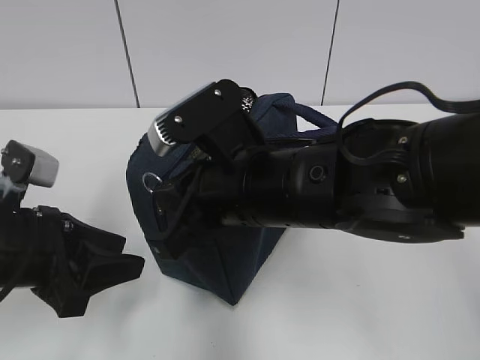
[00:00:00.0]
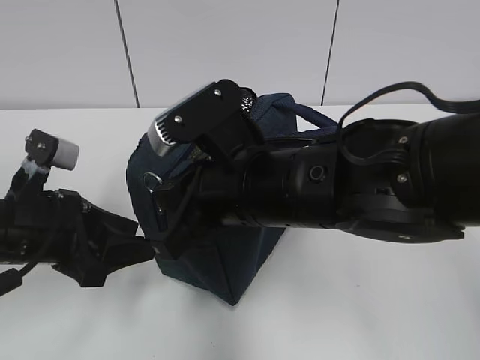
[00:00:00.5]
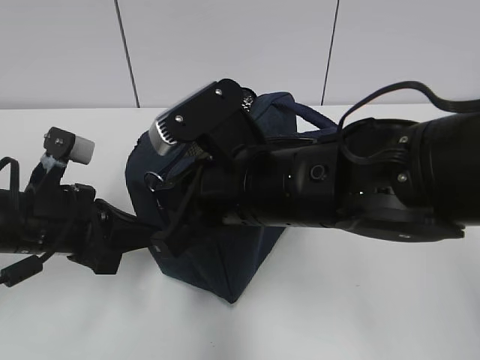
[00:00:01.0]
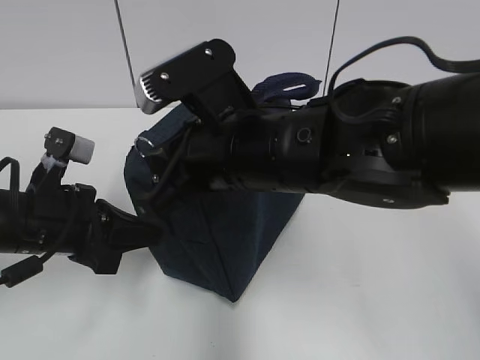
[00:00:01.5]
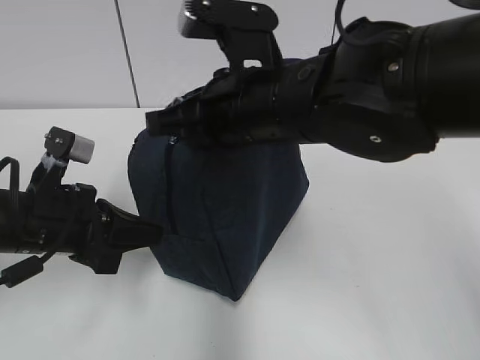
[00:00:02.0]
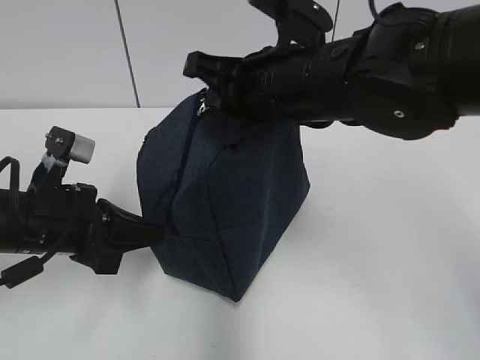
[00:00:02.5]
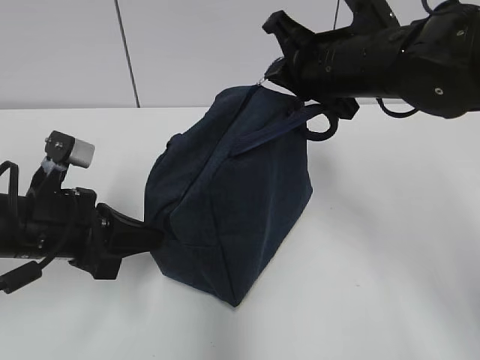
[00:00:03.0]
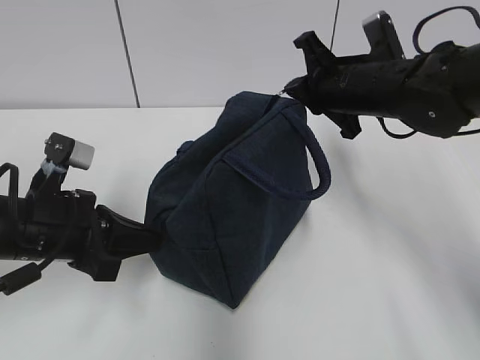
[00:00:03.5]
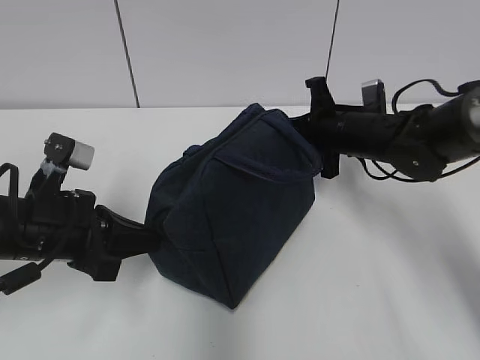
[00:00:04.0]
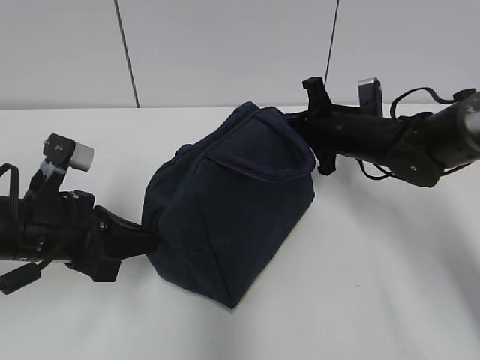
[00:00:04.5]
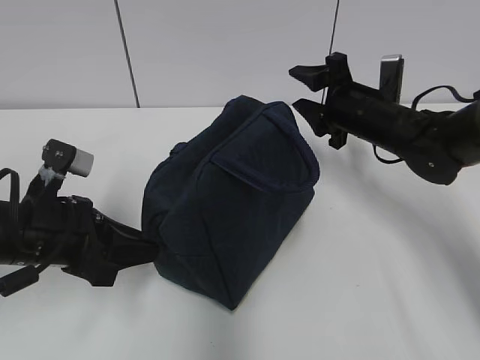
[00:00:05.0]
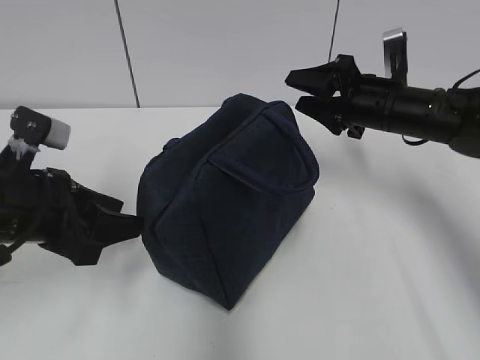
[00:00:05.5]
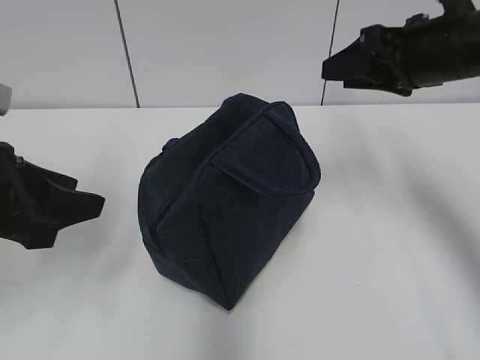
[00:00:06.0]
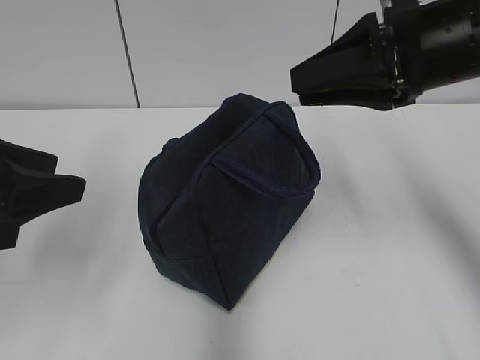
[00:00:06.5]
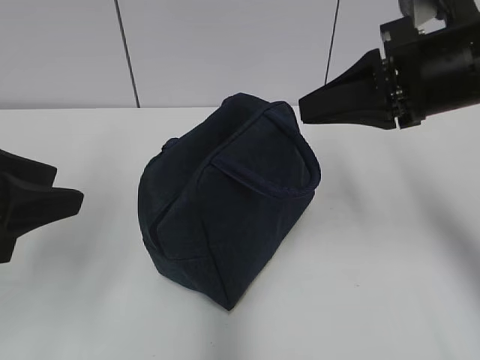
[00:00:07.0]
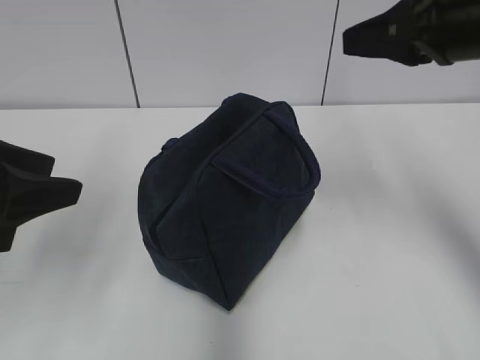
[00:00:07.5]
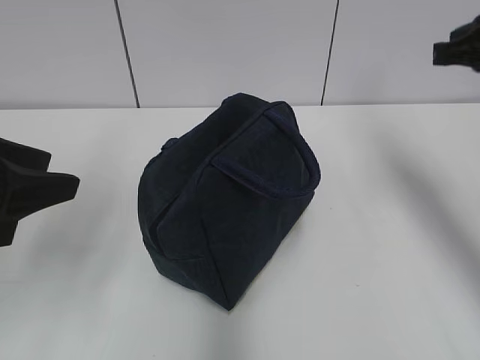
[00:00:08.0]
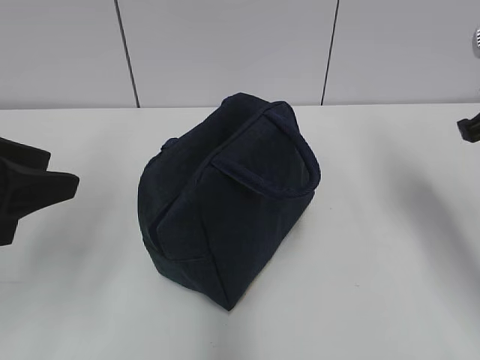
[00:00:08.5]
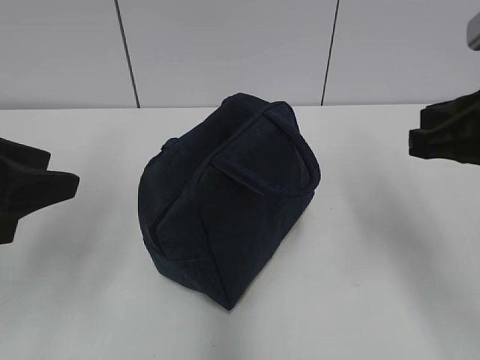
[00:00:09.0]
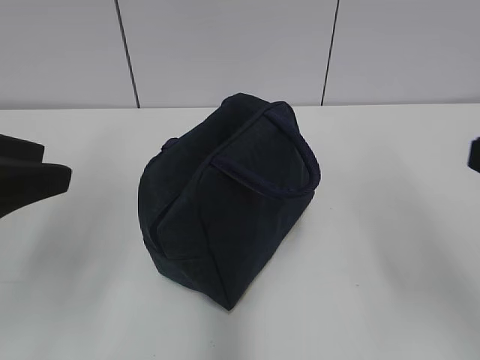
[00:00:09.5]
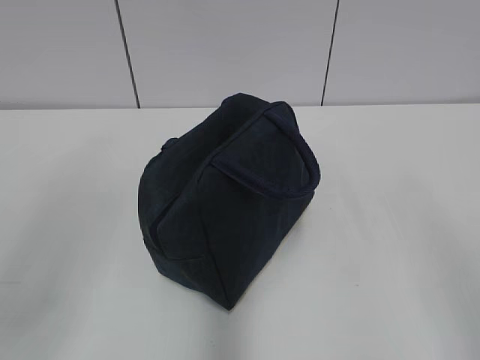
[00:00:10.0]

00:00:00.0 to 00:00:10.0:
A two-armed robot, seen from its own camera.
Step, 00:00:02.0 to 00:00:04.5: Pull the zipper with your right hand.
00:00:00.0 to 00:00:02.0: The left gripper closes up. Meanwhile the right gripper ends up about 5 cm from where it was.
00:00:02.0 to 00:00:04.0: The right gripper heads to the right, forward and downward, covering about 25 cm.
00:00:04.0 to 00:00:06.0: The right gripper is displaced upward and backward by about 20 cm, and opens. The left gripper shifts roughly 10 cm upward, and opens its fingers.
00:00:06.0 to 00:00:08.0: The right gripper goes about 5 cm to the right, and closes its fingers.
00:00:08.0 to 00:00:10.0: The right gripper shifts approximately 25 cm backward. Meanwhile the left gripper goes approximately 10 cm backward.

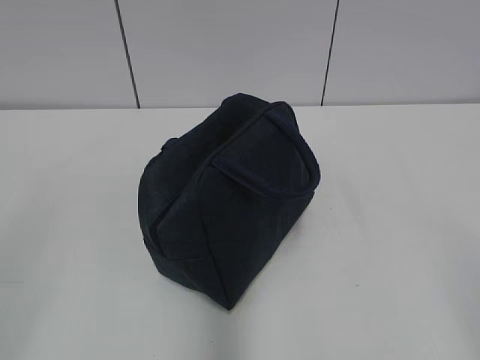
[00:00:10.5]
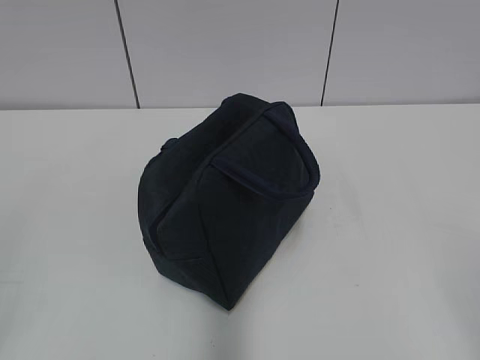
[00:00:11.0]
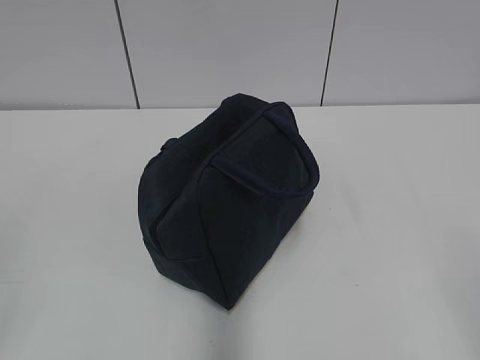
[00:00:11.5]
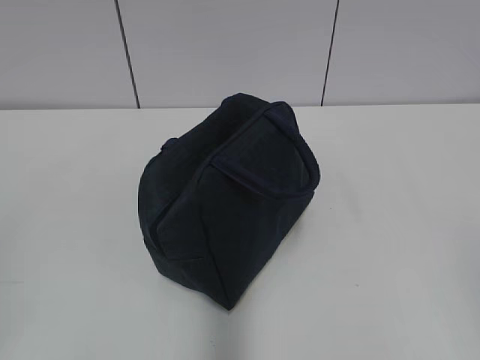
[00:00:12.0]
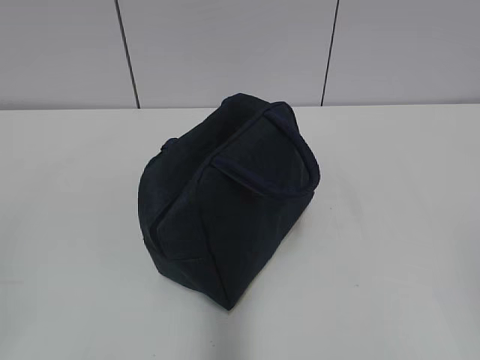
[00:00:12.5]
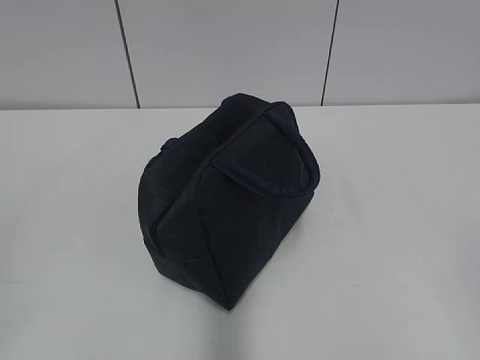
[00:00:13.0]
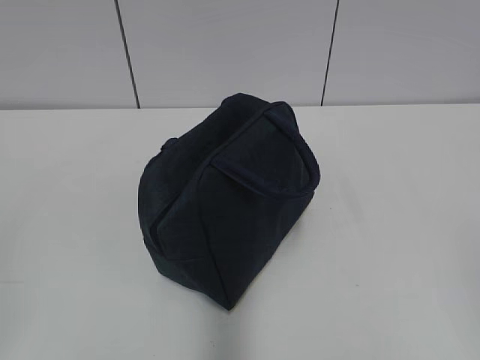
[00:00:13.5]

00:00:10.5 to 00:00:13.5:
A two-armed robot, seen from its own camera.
00:00:12.0 to 00:00:13.5: The two grippers keep their place.

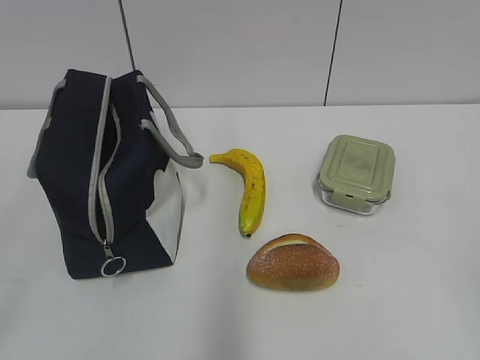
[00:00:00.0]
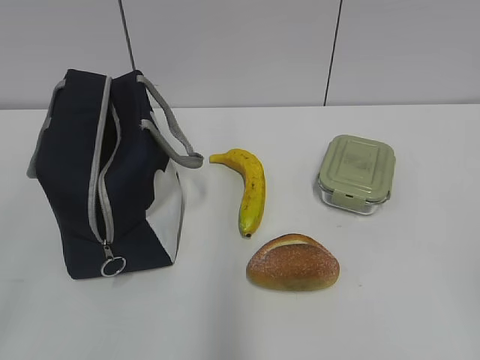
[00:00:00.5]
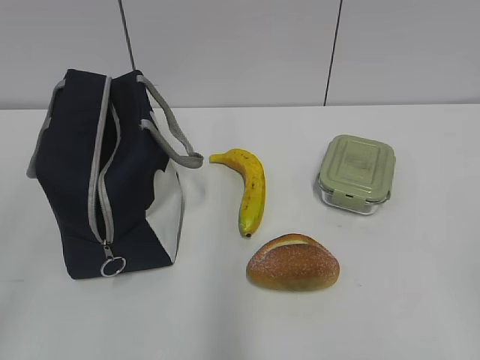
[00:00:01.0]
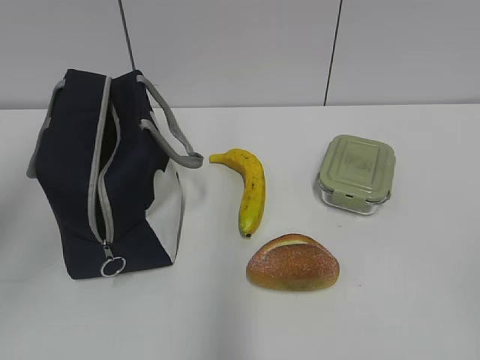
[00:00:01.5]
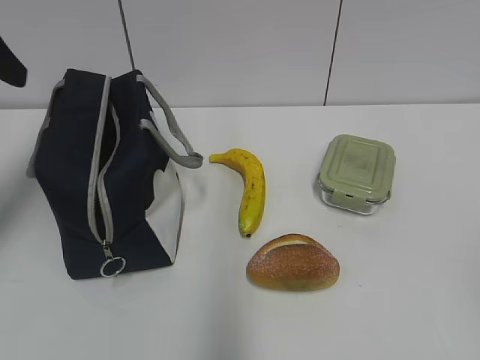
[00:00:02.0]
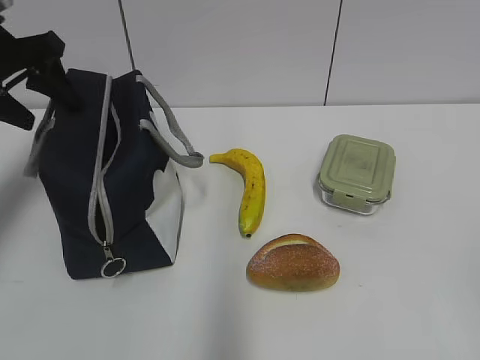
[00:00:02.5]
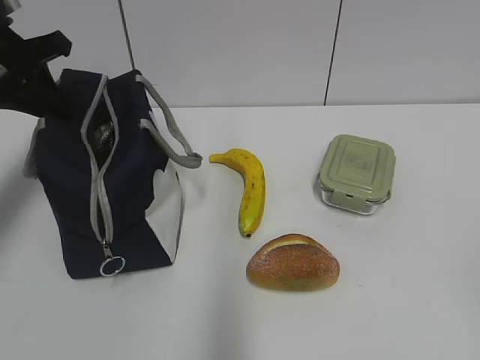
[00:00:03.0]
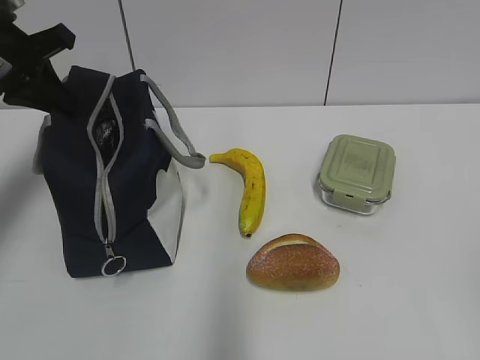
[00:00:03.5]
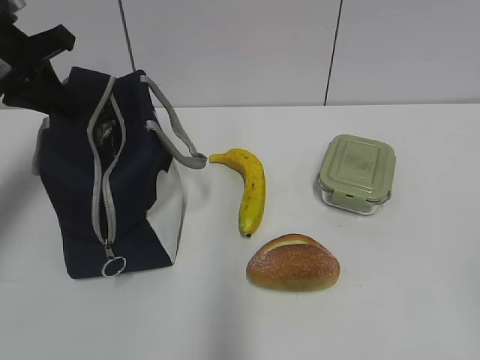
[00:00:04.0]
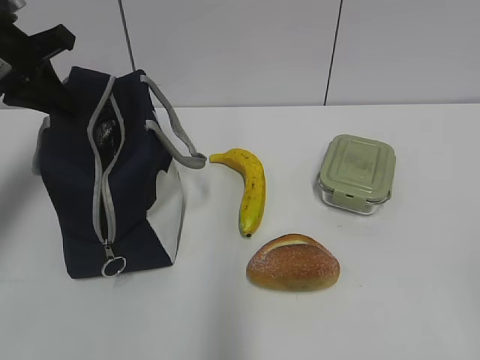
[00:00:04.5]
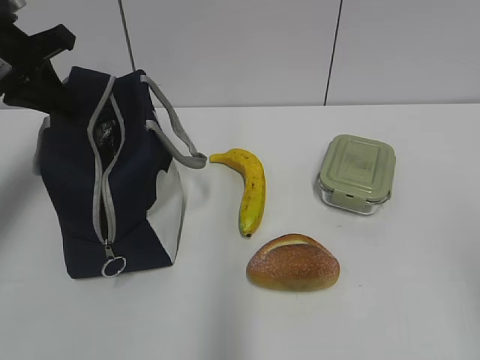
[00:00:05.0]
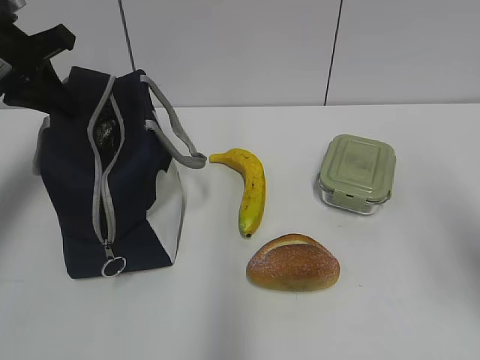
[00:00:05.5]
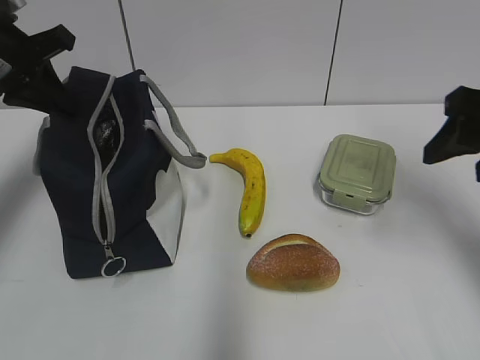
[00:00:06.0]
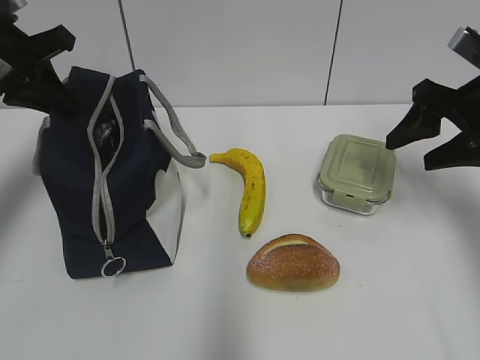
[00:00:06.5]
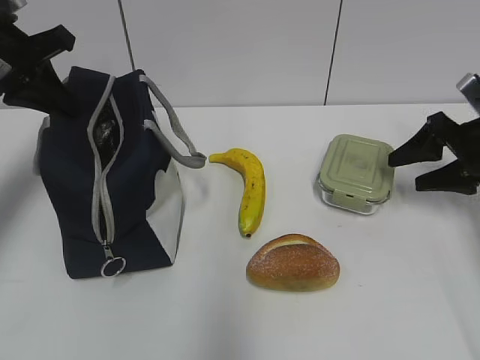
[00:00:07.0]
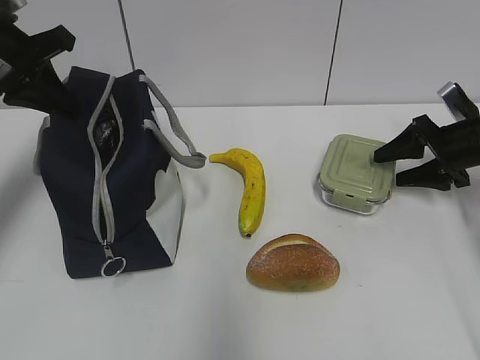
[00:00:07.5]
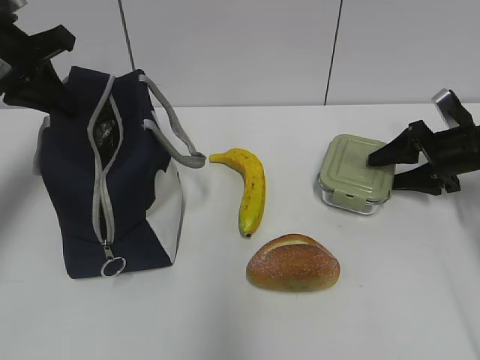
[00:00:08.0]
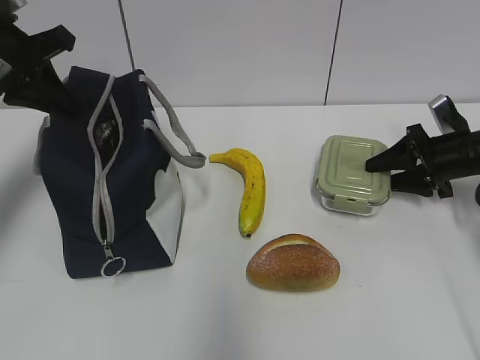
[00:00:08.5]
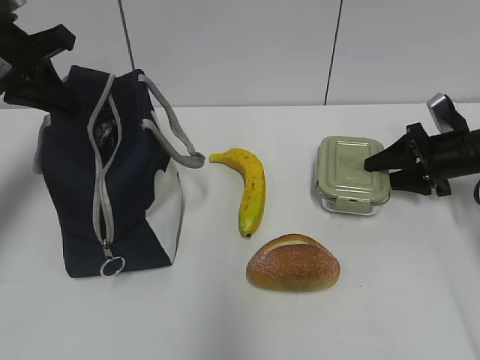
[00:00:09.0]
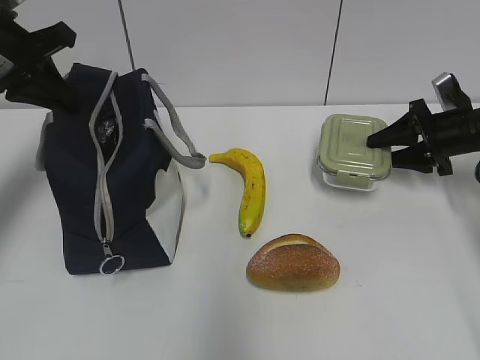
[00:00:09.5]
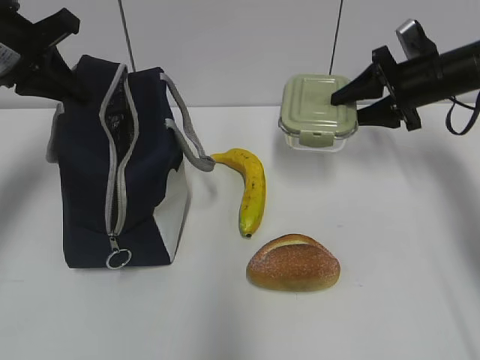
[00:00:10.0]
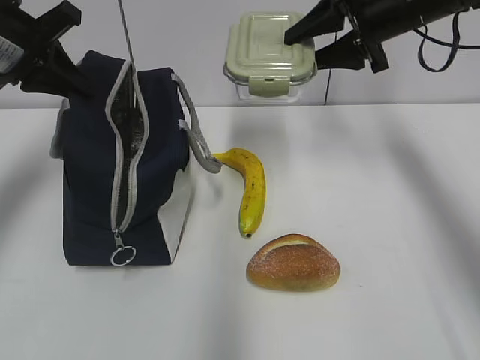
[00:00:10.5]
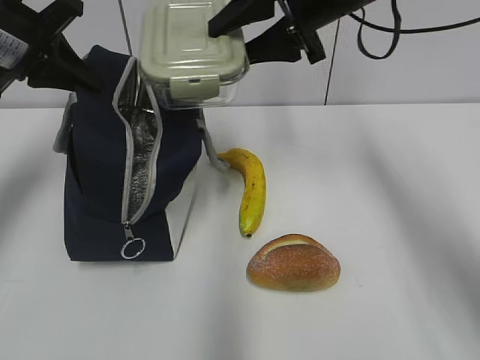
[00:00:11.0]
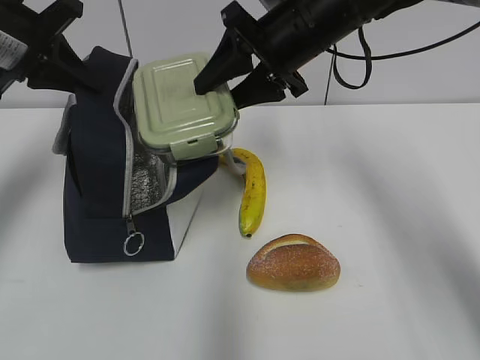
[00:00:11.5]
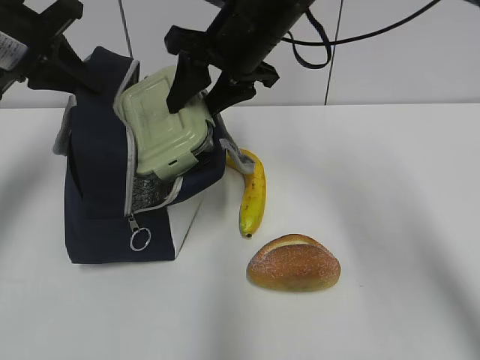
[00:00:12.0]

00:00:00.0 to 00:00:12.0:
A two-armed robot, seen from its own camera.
Step, 00:00:00.0 to 00:00:08.0: Grab the lunch box with your right hand.
00:00:02.0 to 00:00:04.0: The left gripper moves forward and downward, about 10 cm, and closes.
00:00:04.0 to 00:00:06.0: The right gripper shifts some 25 cm forward.
00:00:06.0 to 00:00:08.0: The right gripper travels downward, forward and to the right by roughly 25 cm.
00:00:08.0 to 00:00:10.0: The right gripper heads upward and to the left, covering some 10 cm.
00:00:10.0 to 00:00:12.0: The right gripper goes roughly 25 cm to the left and upward.
